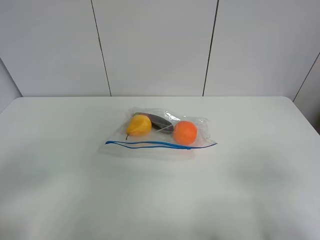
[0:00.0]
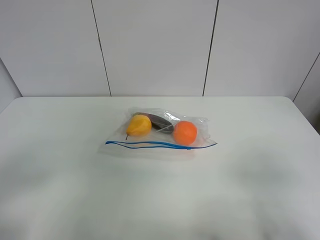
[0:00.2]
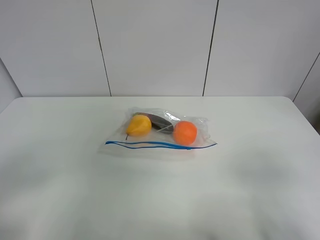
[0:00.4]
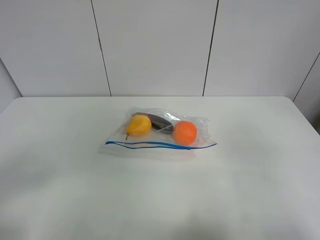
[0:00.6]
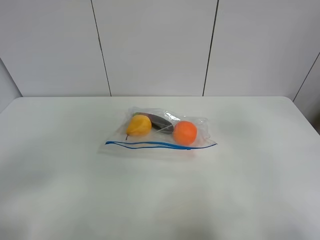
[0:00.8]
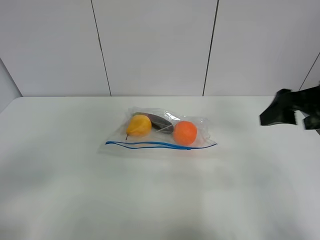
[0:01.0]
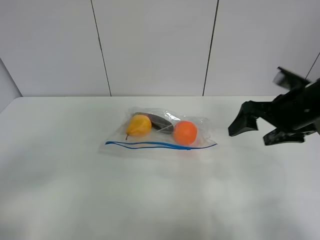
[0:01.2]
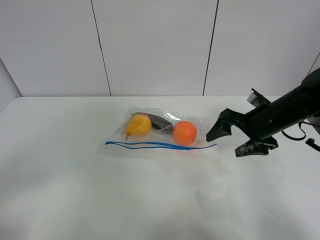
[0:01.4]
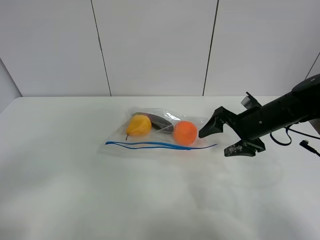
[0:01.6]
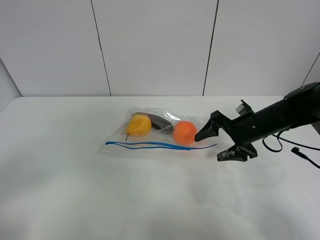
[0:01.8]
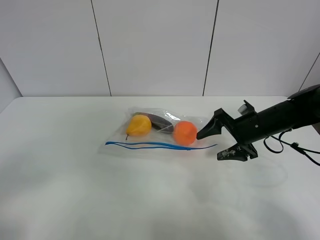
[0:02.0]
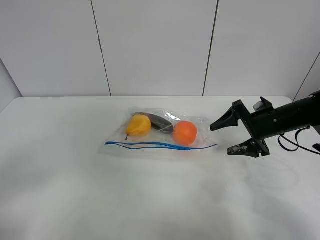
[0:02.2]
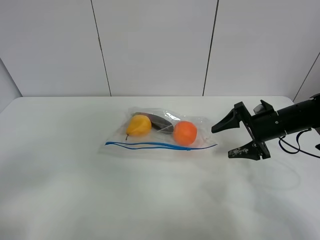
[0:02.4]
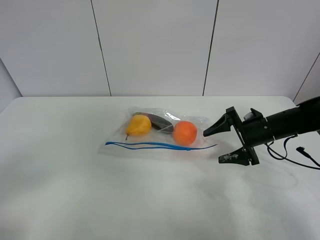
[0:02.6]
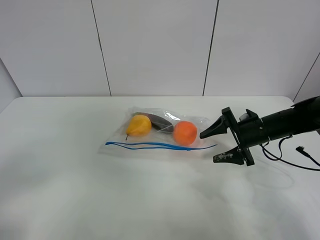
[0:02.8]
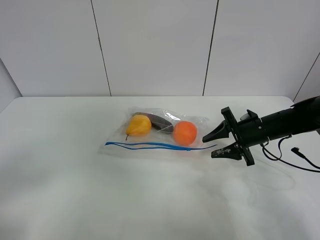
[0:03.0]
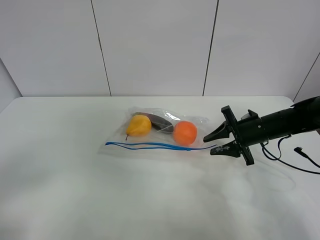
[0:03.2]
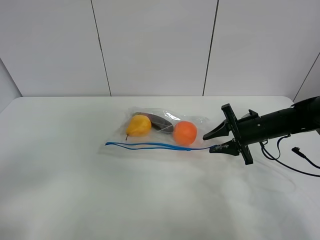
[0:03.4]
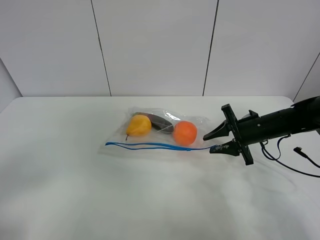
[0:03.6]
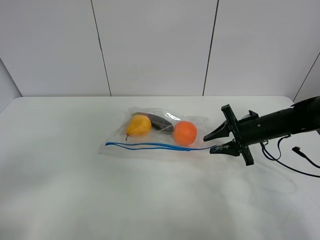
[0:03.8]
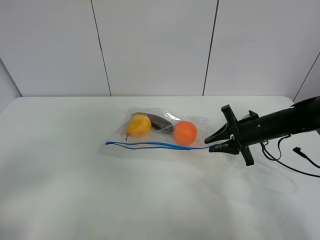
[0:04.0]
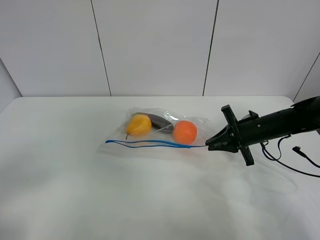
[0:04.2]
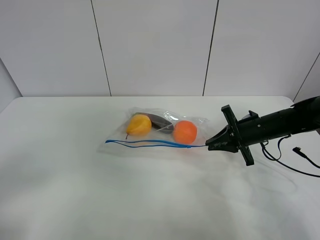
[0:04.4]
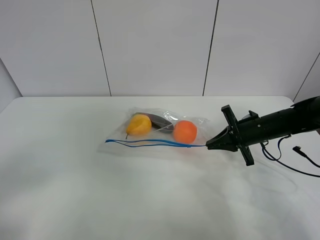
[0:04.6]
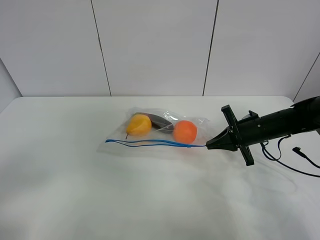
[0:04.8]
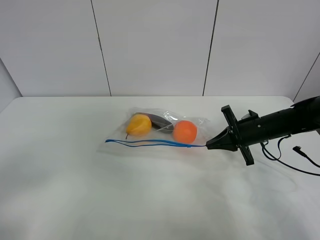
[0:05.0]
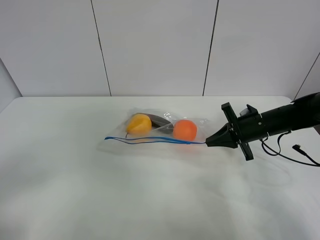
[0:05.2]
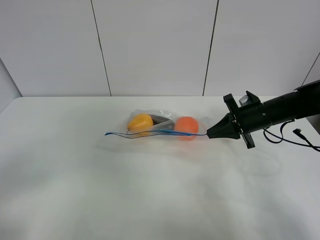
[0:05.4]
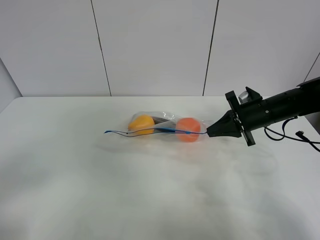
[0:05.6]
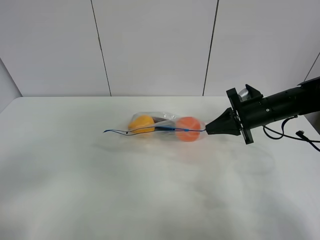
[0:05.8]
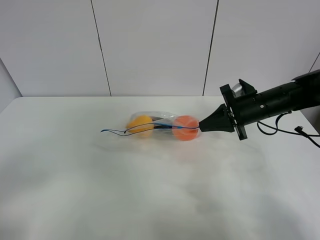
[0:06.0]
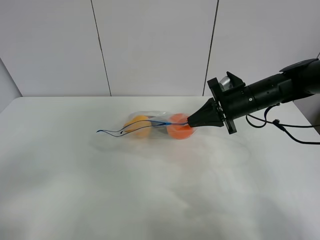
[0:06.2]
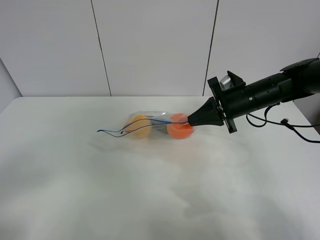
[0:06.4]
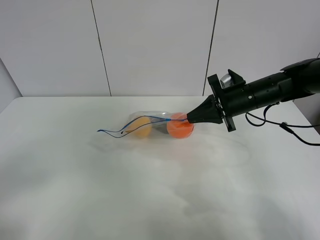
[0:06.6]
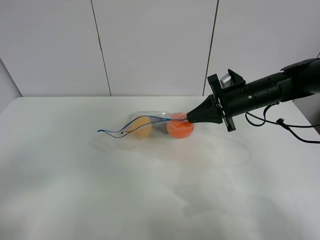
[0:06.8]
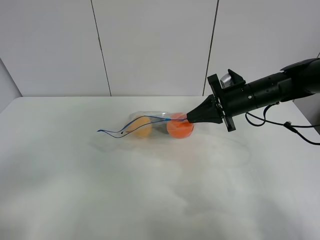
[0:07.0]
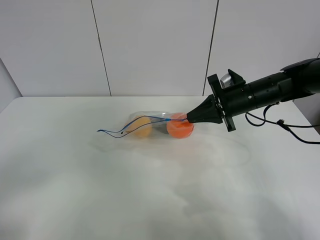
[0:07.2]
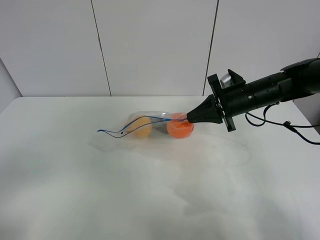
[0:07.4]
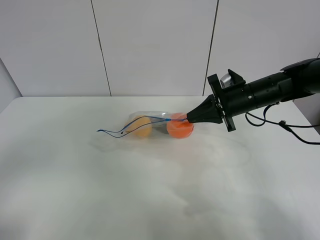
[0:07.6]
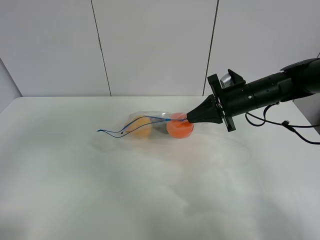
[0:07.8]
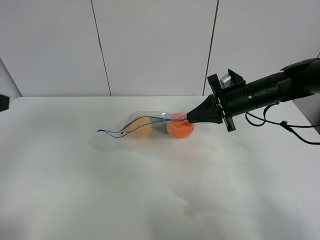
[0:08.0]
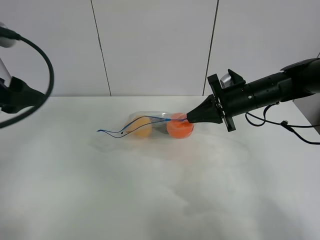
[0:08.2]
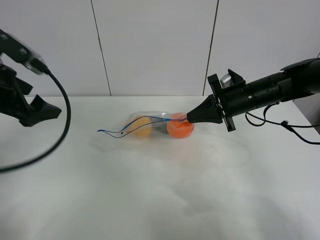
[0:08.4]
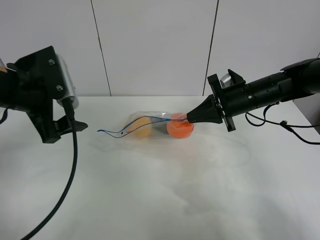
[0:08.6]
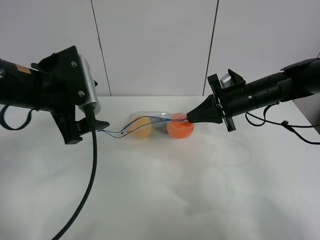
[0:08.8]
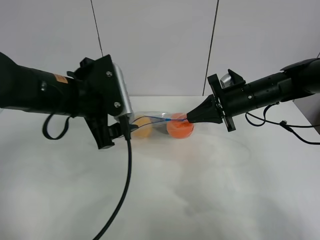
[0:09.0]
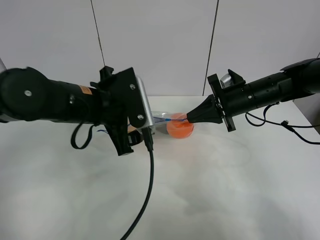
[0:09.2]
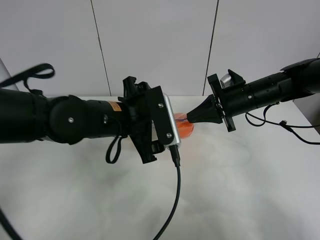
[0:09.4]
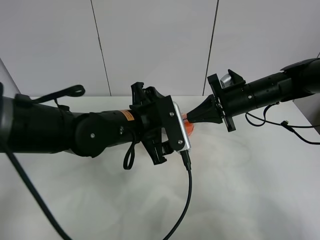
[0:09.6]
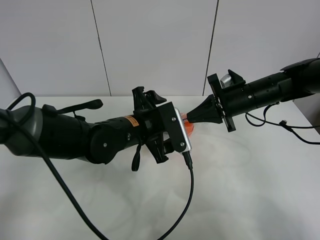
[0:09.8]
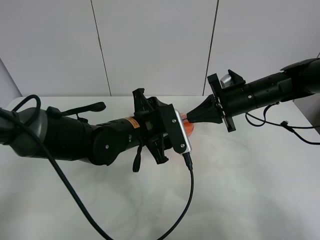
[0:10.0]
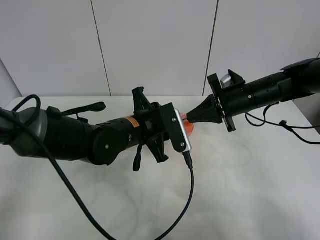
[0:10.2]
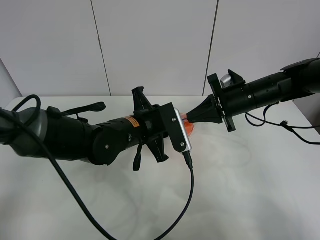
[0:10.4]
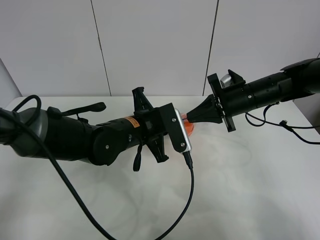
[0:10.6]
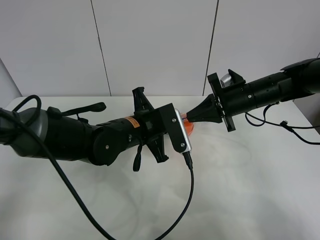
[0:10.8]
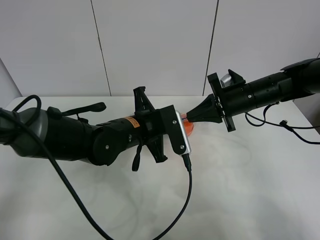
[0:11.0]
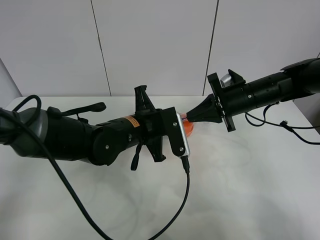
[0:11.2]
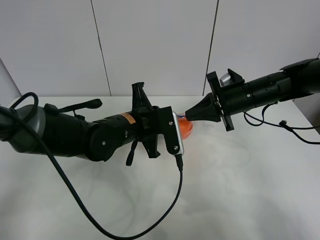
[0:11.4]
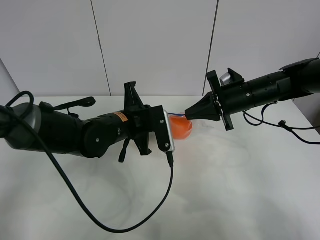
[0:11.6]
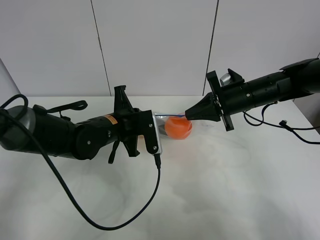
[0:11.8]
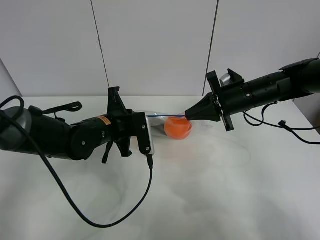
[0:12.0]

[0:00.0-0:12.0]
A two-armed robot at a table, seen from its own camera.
Step, 0:00.0 to 0:04.6: Grasp the fruit bag with right gripper.
Step, 0:04.8 to 0:07.0: Lift the fruit bag with your right gripper.
0:00.0 to 0:01.6: The right gripper heads forward, covering approximately 30 cm.
0:01.6 to 0:03.0: The right gripper shifts by about 5 cm, and closes its fingers.
0:03.0 to 0:04.4: The right gripper closes its fingers.
0:04.4 to 0:06.0: The right gripper is displaced upward by some 5 cm.
0:06.0 to 0:07.6: The left gripper shifts by approximately 5 cm.
0:07.6 to 0:09.0: The left gripper moves forward and to the right, roughly 30 cm.
0:09.0 to 0:10.4: The left gripper travels downward and to the right by some 10 cm, and closes its fingers.
0:10.4 to 0:12.0: The left gripper moves to the left, approximately 5 cm.

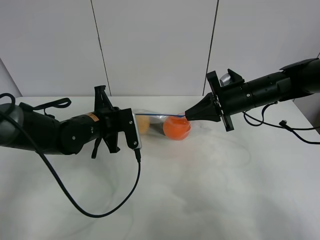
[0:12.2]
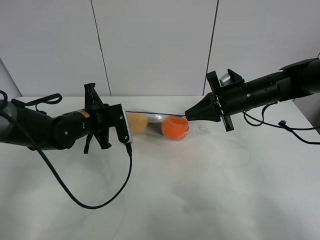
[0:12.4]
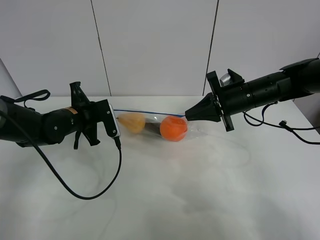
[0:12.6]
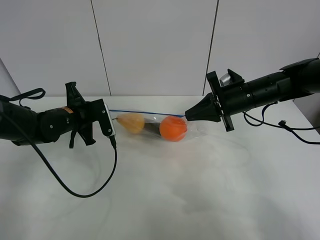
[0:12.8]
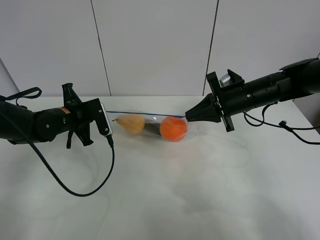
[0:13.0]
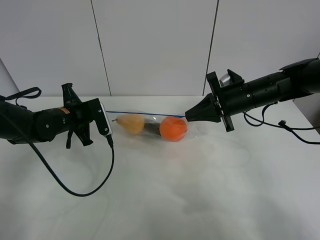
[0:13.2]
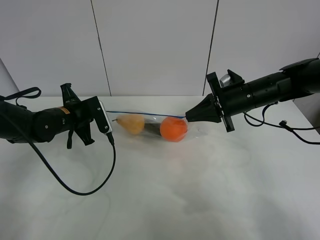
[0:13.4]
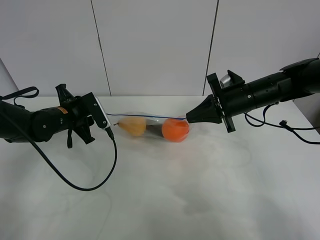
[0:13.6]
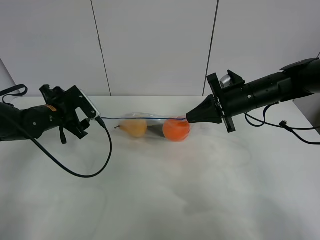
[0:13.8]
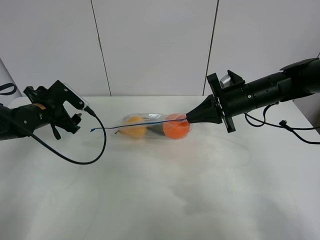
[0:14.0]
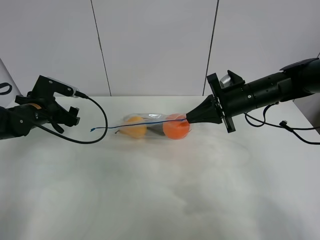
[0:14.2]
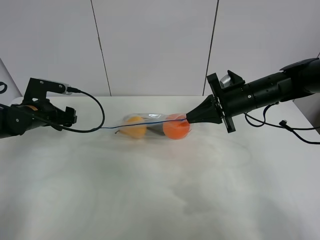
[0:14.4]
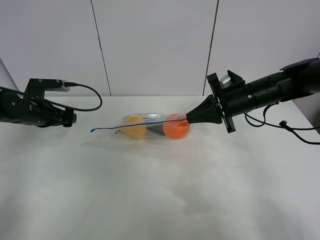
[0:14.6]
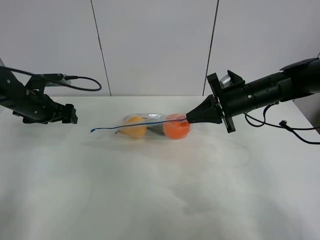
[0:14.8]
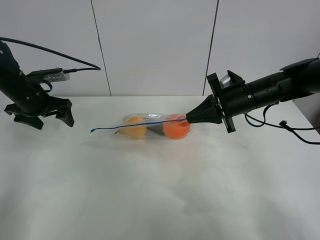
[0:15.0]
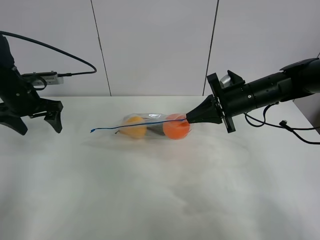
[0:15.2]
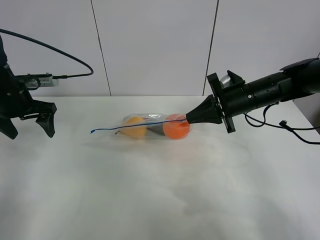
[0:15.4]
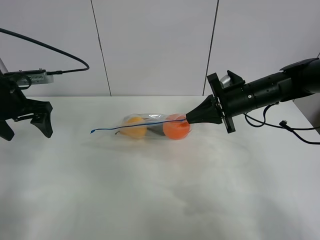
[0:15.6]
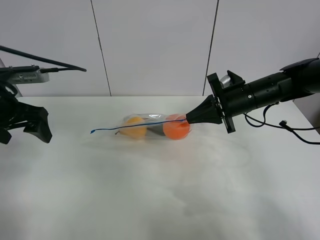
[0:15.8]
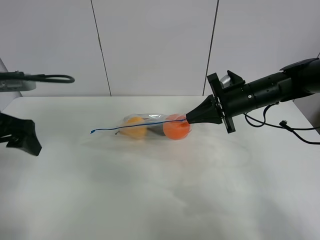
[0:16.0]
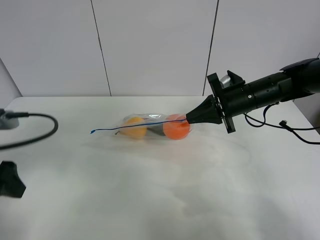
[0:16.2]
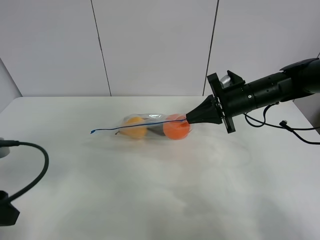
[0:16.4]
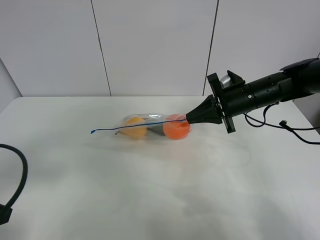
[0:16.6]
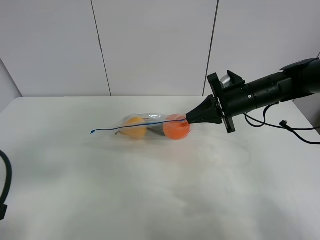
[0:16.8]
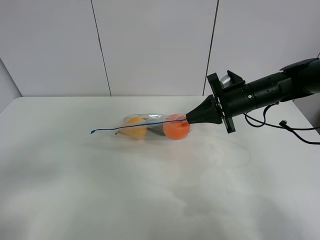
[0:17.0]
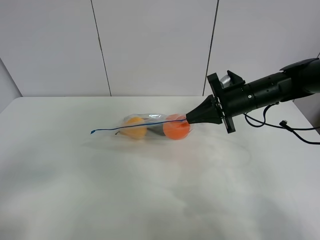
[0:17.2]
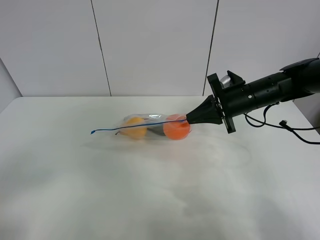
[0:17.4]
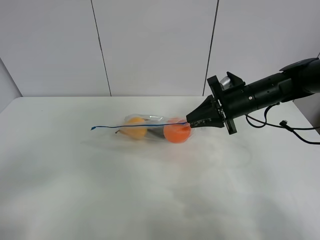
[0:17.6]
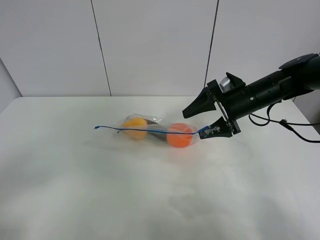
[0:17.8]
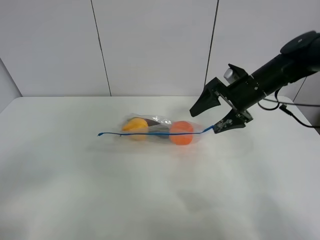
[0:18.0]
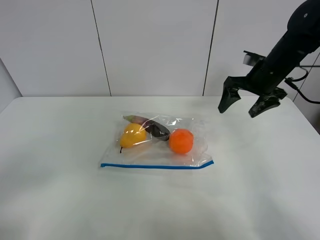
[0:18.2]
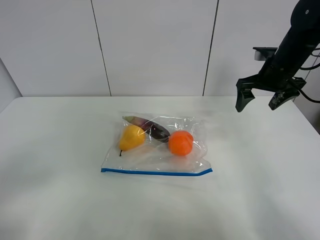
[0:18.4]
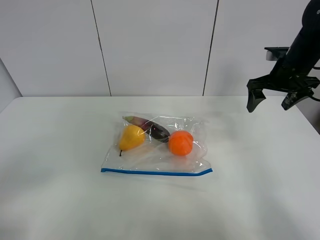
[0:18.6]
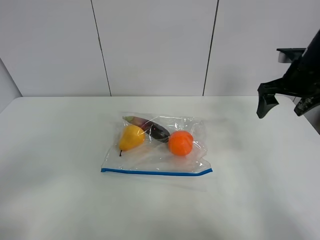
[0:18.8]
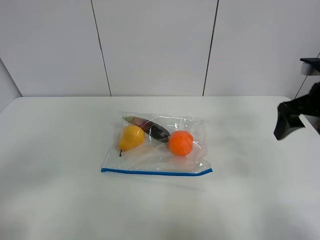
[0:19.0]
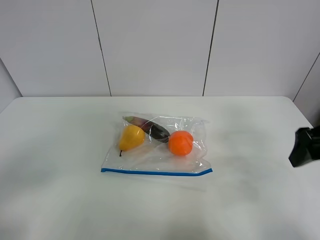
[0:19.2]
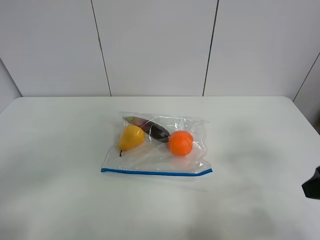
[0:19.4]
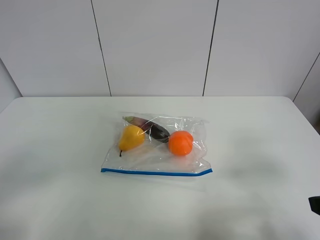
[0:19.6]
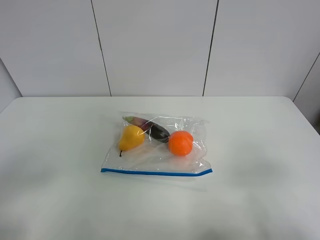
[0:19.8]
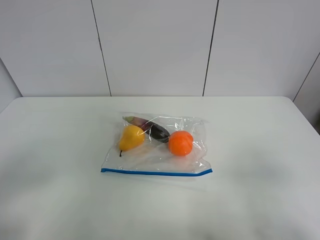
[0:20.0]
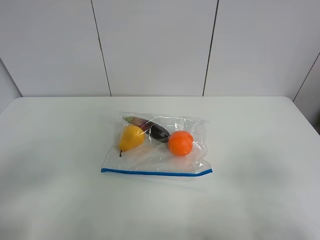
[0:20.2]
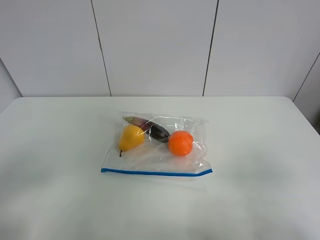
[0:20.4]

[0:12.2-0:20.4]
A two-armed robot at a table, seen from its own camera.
0:12.2 to 0:13.8: The left gripper travels to the left by roughly 10 cm, and opens.
0:13.8 to 0:15.4: The left gripper heads upward and to the left, covering about 10 cm.
0:15.4 to 0:17.2: The left gripper goes approximately 35 cm backward.
0:17.2 to 0:18.8: The right gripper moves to the right and upward, roughly 15 cm, and opens up.
0:18.8 to 0:20.4: The right gripper travels backward by approximately 35 cm.

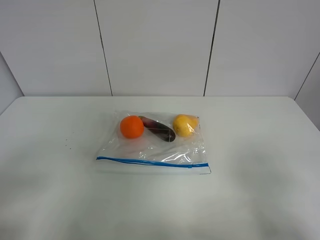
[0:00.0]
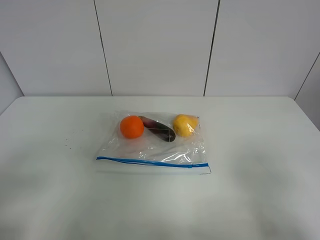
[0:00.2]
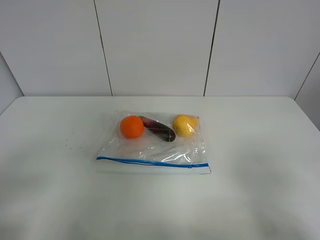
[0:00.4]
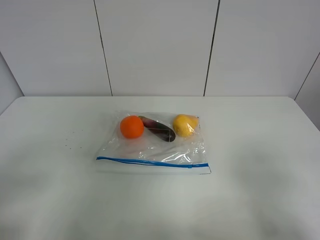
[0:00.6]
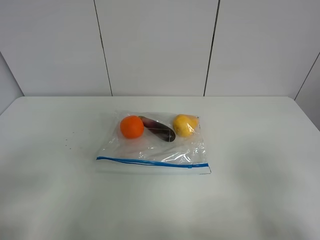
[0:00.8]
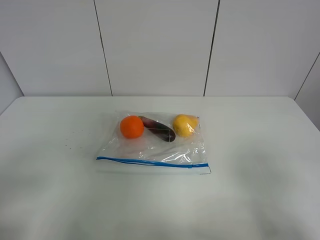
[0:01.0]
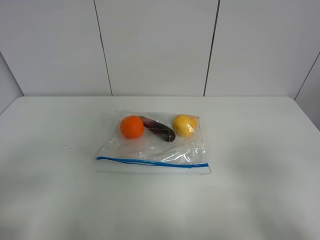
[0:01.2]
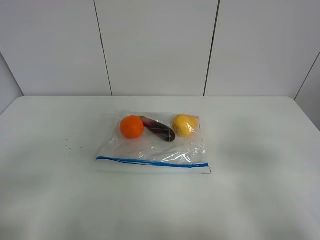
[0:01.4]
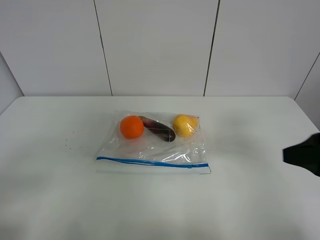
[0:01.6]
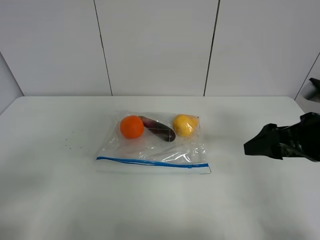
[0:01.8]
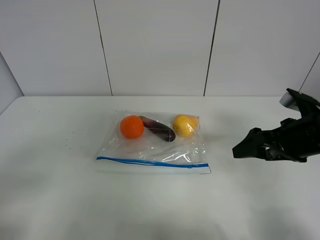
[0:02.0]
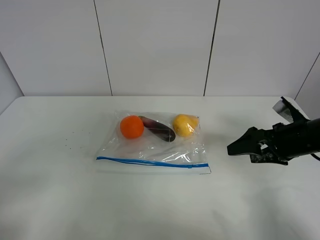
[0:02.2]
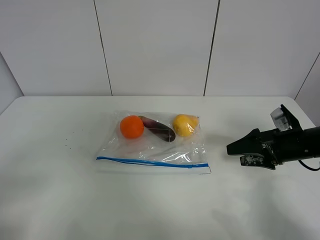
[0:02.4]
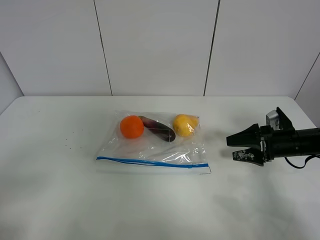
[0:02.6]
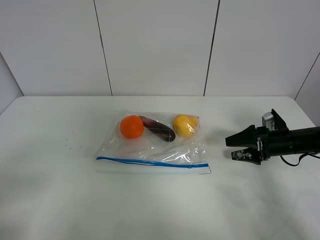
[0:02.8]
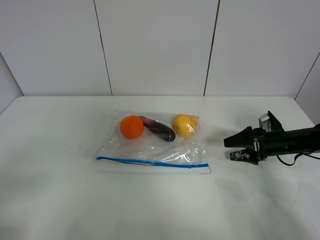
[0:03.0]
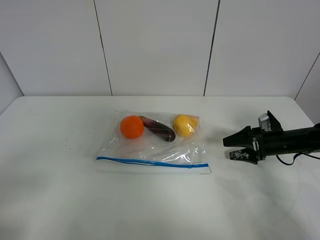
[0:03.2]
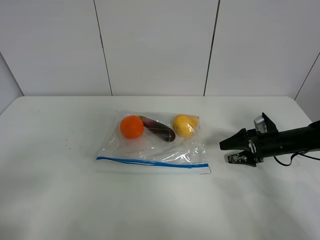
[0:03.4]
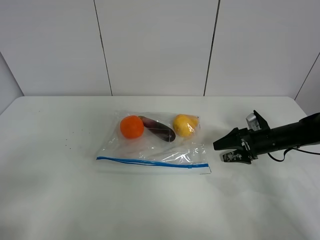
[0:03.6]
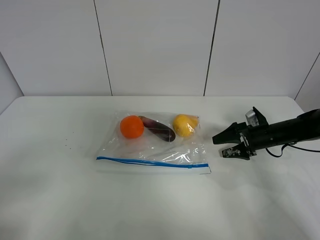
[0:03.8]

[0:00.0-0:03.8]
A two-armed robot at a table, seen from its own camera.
0:01.2 to 0:02.6: The right gripper moves forward and downward, some 35 cm.
0:02.6 to 0:03.8: The right gripper shifts approximately 5 cm forward.
